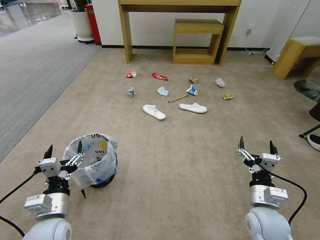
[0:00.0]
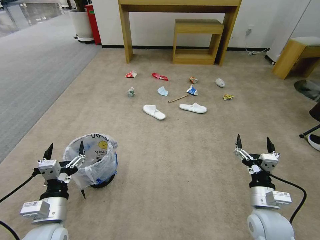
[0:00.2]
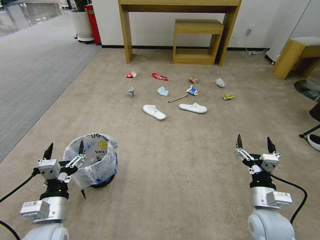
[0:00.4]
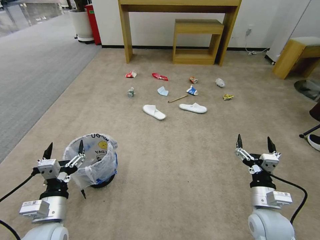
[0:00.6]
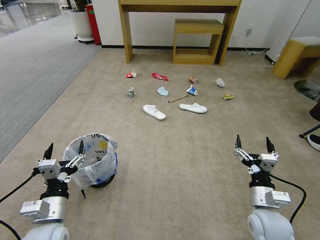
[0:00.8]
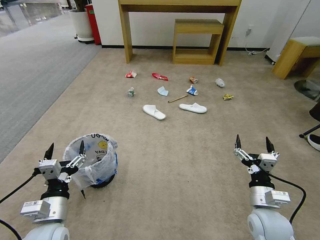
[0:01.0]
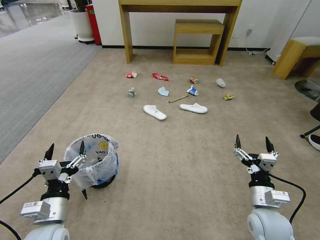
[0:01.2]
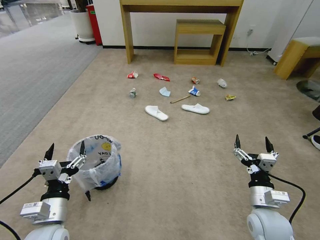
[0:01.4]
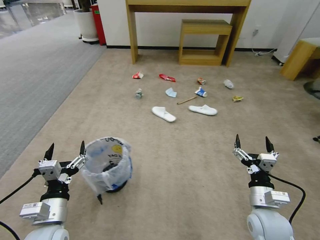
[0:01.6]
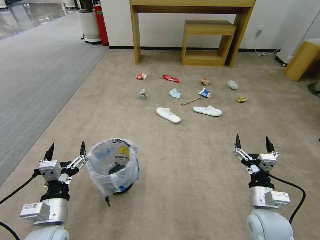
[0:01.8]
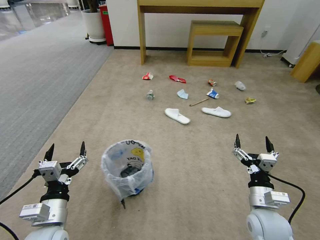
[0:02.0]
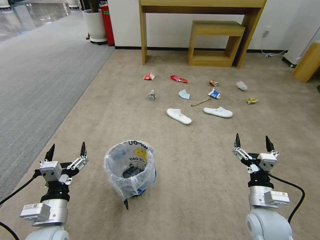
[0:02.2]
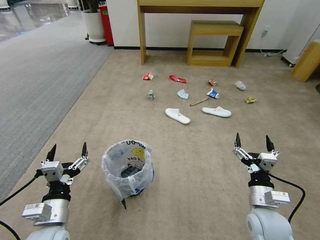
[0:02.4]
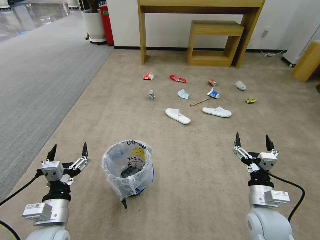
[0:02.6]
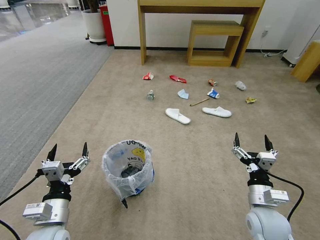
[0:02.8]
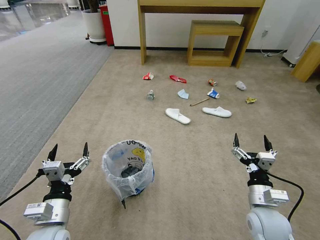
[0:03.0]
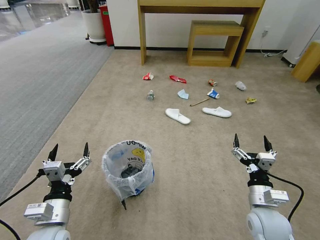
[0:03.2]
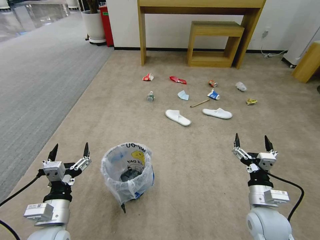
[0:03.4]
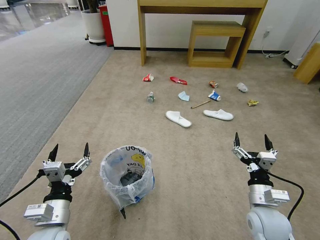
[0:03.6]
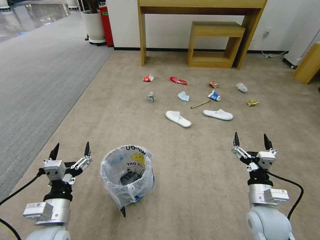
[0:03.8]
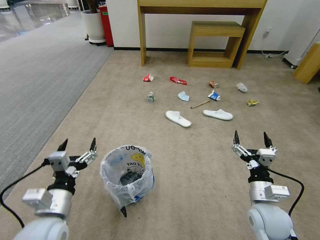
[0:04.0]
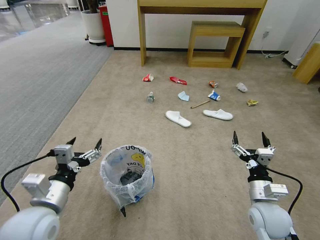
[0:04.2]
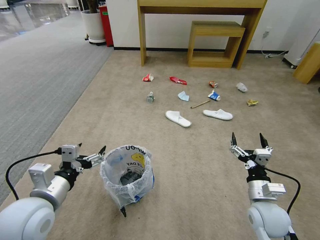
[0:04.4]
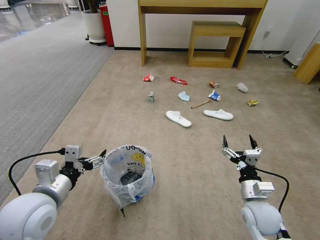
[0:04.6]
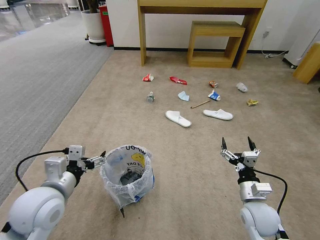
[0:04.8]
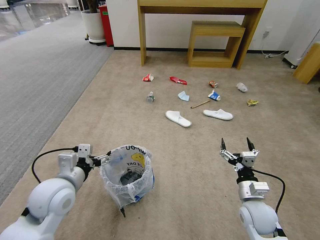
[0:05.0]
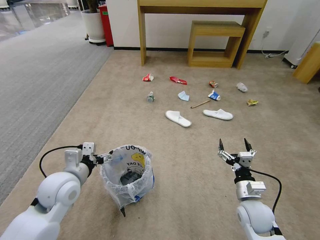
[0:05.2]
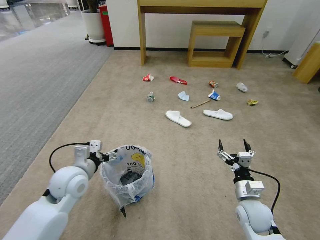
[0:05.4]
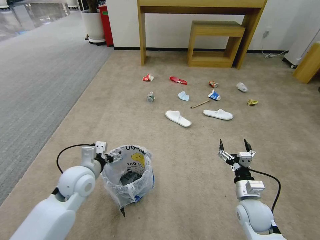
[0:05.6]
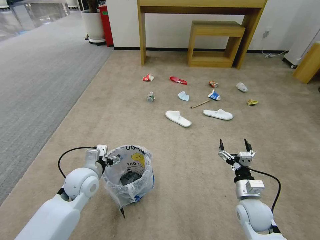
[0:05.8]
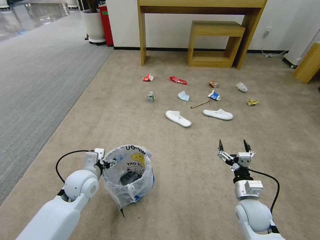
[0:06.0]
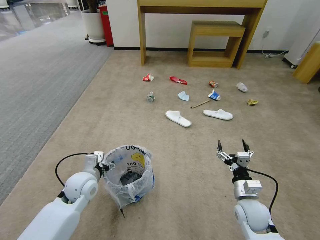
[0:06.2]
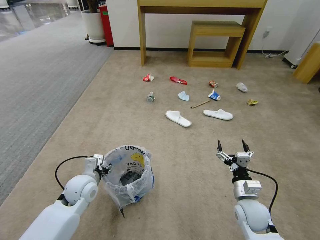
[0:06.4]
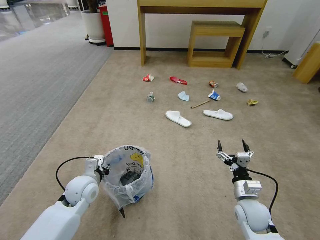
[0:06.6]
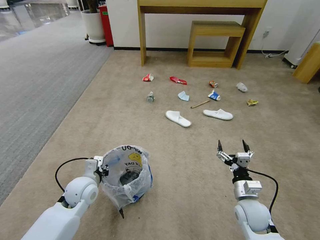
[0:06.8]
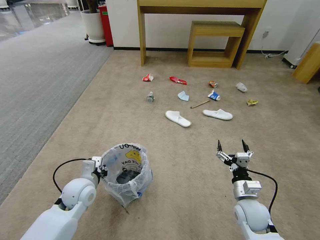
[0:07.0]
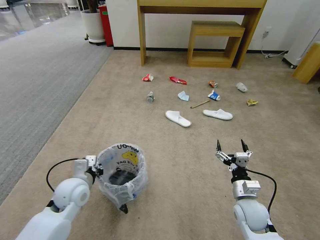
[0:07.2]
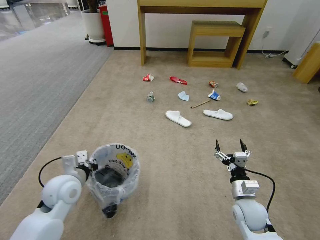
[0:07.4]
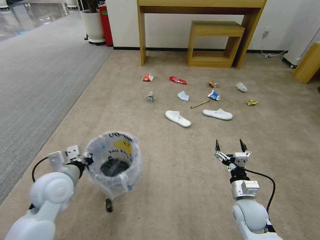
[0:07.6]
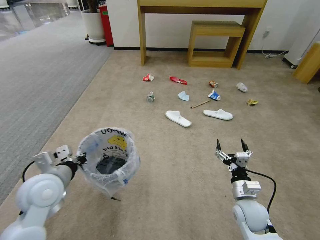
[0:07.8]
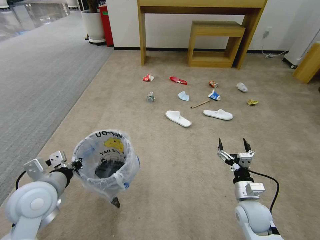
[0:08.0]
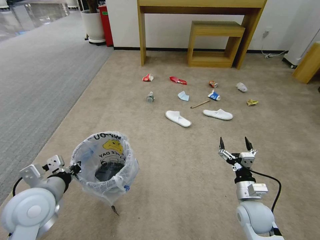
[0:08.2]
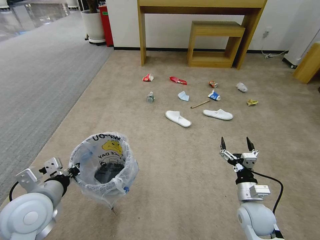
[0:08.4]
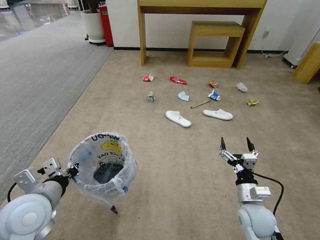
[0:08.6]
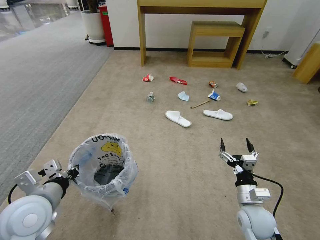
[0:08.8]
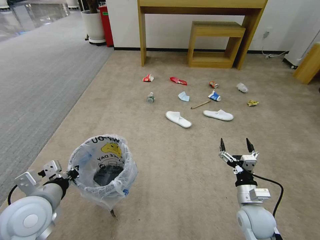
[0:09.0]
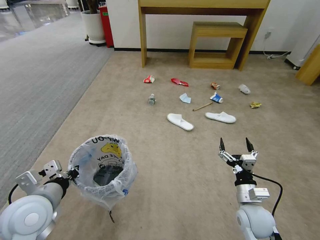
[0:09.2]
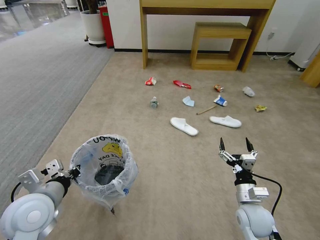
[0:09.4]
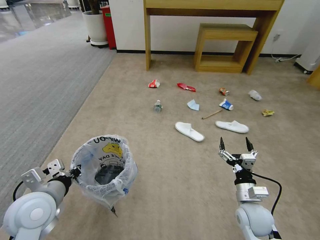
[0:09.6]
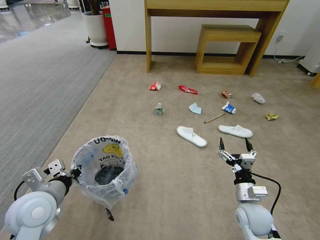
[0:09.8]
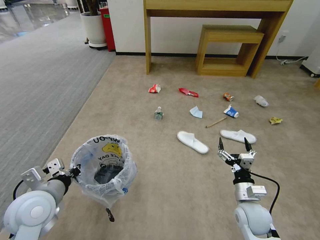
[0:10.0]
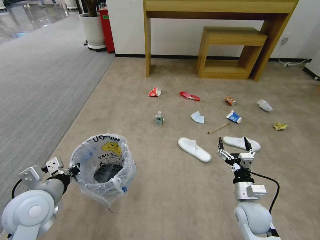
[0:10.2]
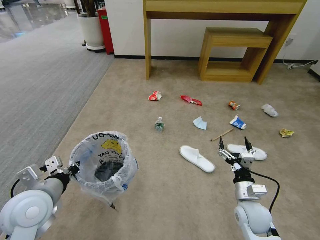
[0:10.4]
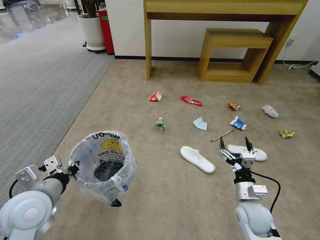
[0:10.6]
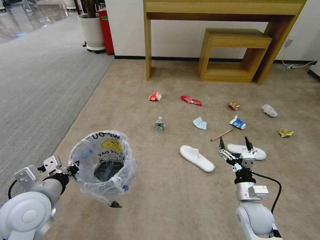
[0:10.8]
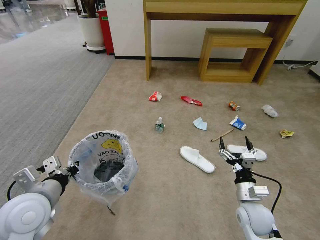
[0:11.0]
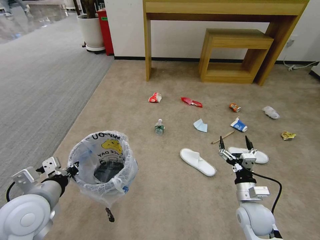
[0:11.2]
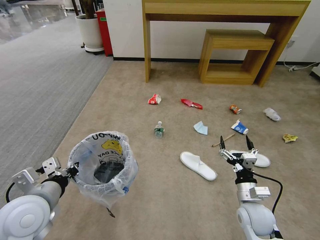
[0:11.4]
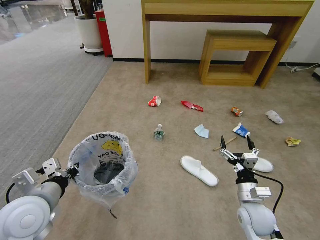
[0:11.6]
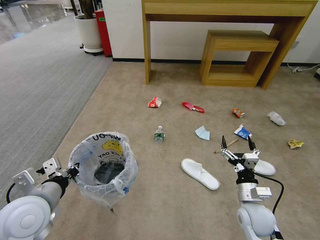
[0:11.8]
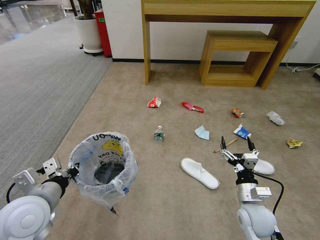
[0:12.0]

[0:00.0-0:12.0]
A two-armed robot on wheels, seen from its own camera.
Task of the whole recording: Pick up the trash bin and place the garbage on the floor into it.
0:01.6 to 0:03.0: Both grippers stay about where they are.
0:03.0 to 0:04.4: The left gripper heads upward, covering some 10 cm.
0:04.4 to 0:06.0: The right gripper shifts by approximately 5 cm. The left gripper is displaced forward and downward by approximately 15 cm.
0:06.0 to 0:07.6: The left gripper moves upward, approximately 5 cm, and closes up.
0:07.6 to 0:09.0: The left gripper shifts roughly 10 cm backward.
0:10.4 to 0:12.0: The grippers make only small movements.

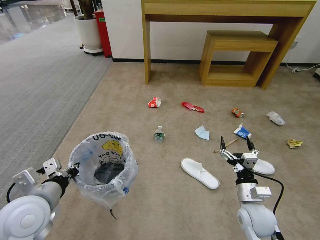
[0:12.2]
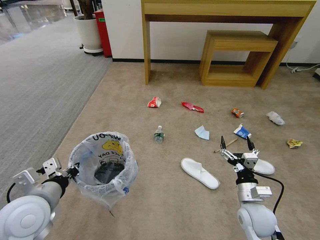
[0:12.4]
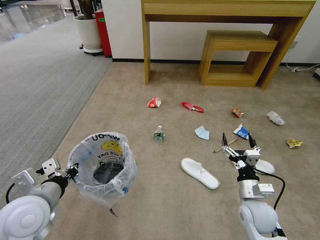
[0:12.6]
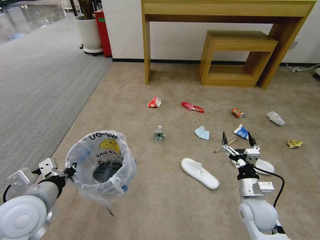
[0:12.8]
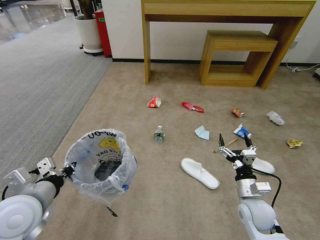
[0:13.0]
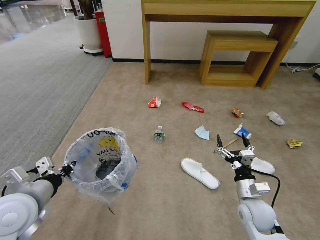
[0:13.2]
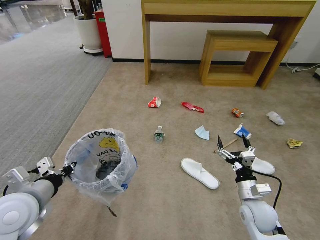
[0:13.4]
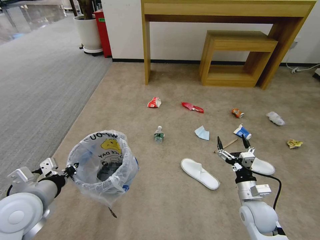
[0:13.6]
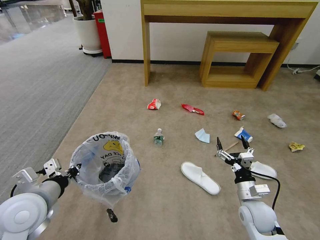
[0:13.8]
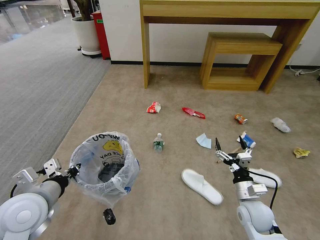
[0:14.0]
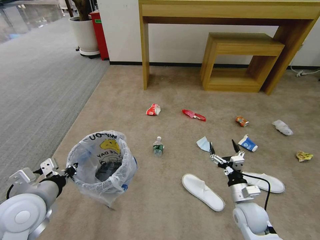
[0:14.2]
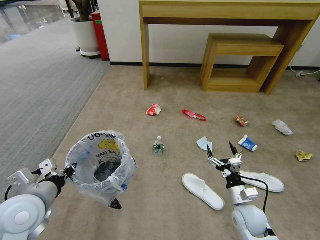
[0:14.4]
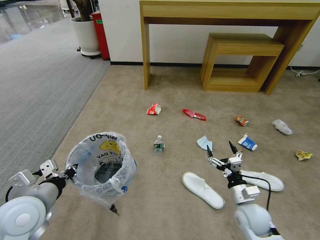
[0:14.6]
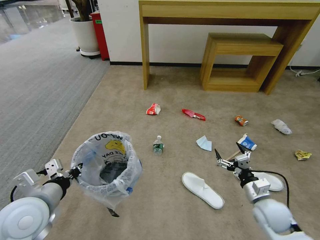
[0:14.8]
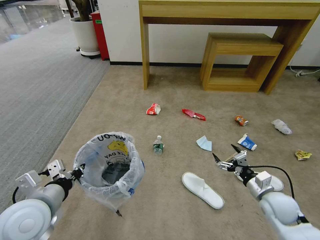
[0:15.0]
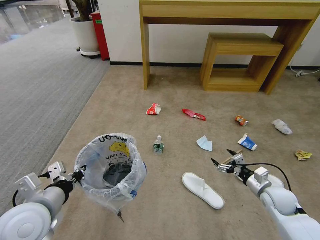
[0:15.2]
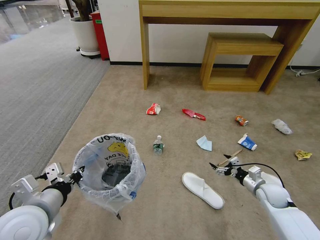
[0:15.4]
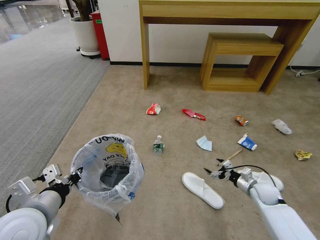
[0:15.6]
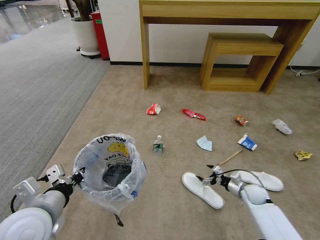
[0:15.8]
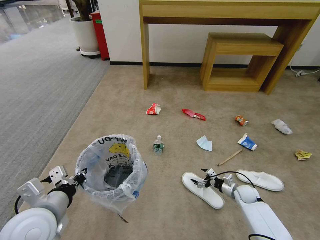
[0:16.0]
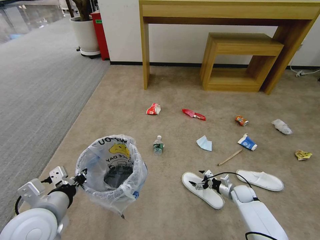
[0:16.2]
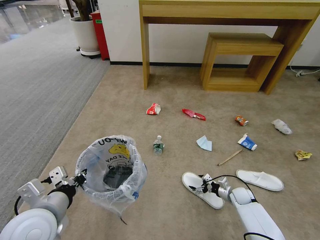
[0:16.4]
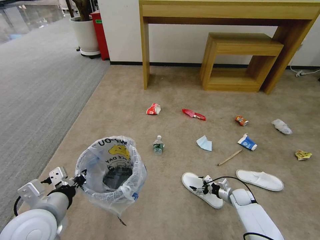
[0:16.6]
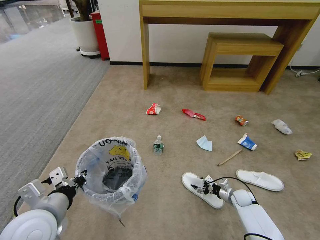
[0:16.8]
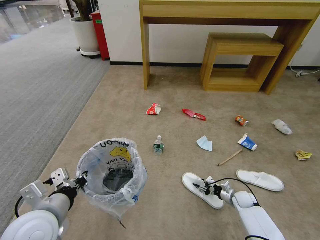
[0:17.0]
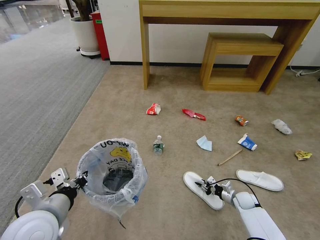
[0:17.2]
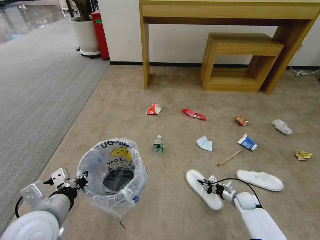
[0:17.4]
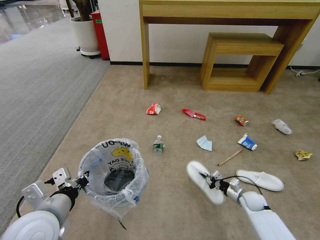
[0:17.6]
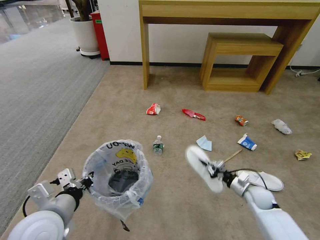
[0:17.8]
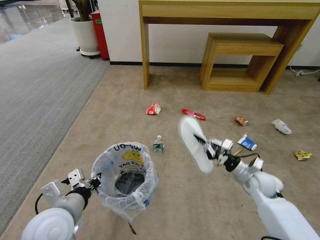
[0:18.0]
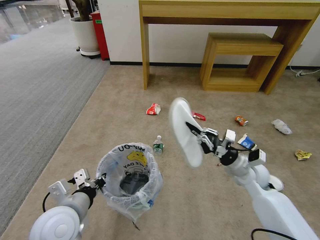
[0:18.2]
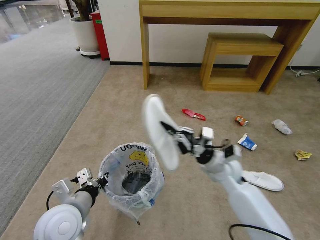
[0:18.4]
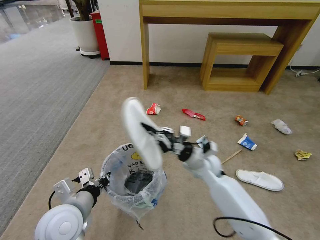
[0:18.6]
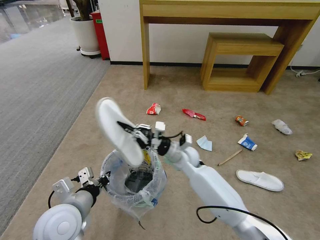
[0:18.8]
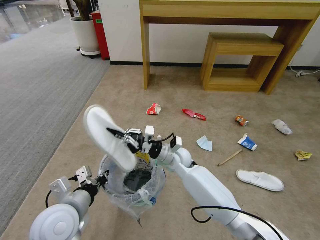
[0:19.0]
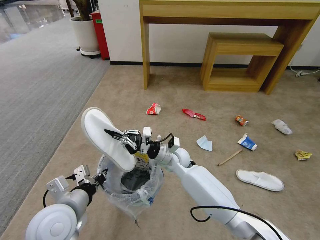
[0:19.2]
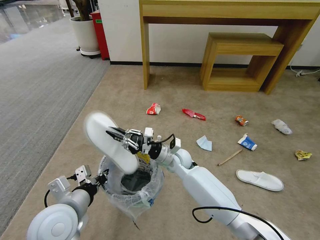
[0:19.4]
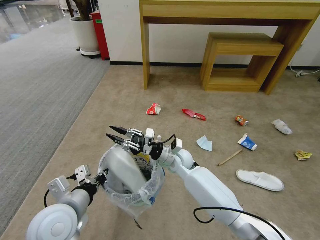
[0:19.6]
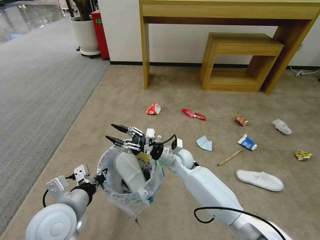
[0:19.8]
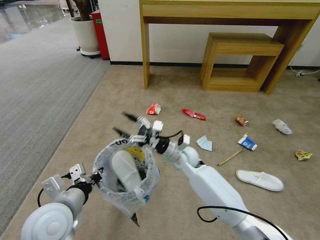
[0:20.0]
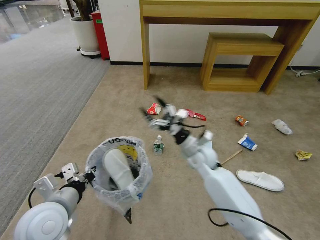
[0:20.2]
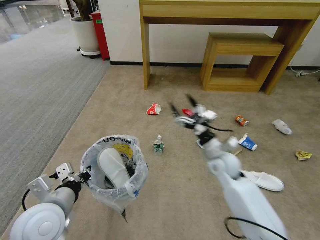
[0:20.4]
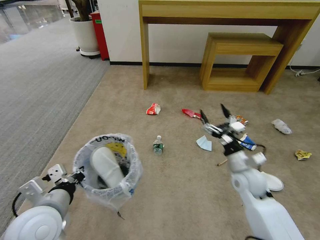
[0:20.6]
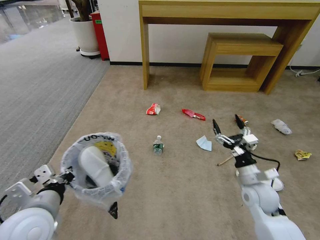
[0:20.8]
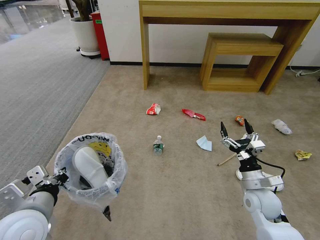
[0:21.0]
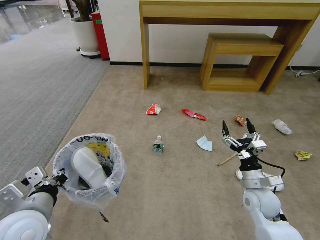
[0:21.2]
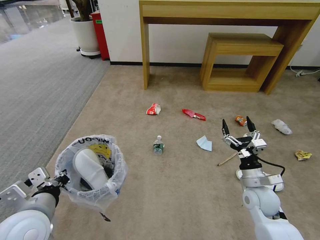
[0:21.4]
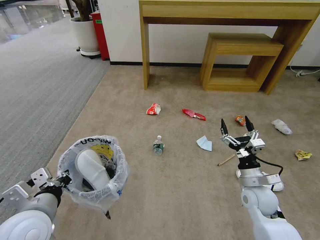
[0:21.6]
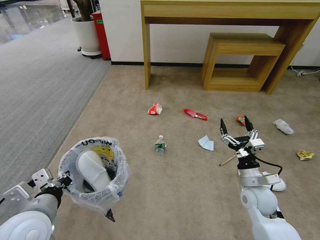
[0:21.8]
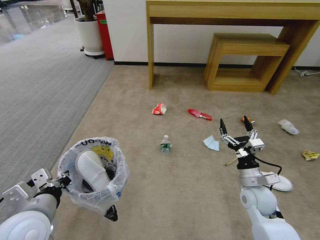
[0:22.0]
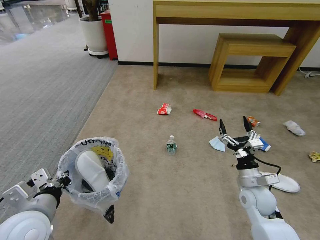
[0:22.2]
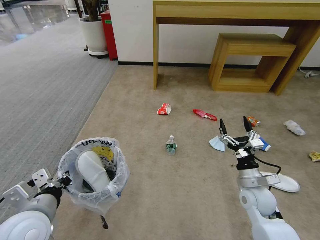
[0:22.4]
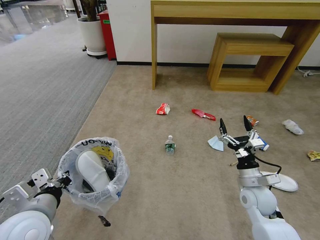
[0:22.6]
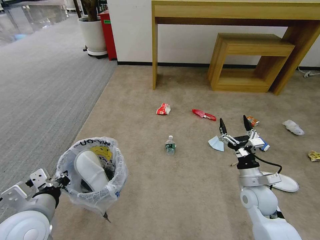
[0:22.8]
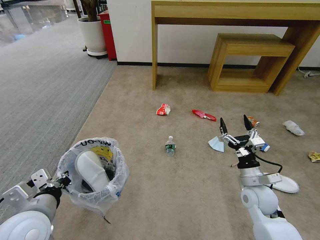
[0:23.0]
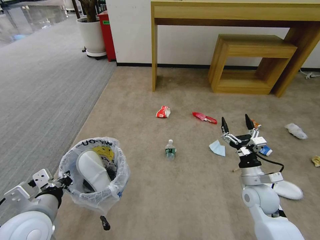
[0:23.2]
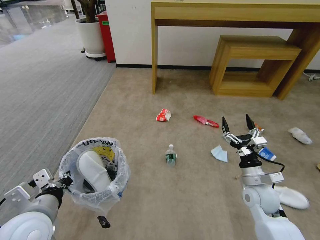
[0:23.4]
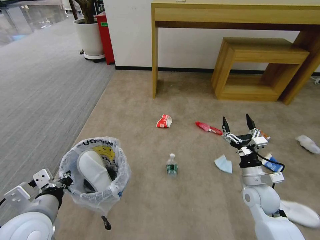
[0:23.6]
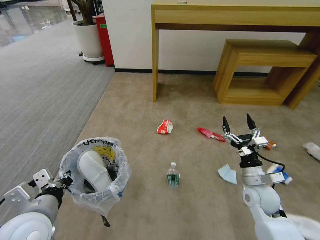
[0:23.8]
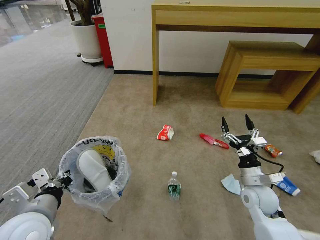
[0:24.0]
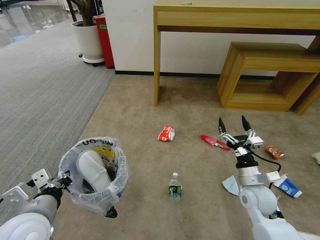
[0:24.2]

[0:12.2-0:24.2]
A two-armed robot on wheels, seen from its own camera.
Task of the whole recording: Pick up the trash bin and place the garbage on the floor into it.
0:12.2 to 0:13.8: The grippers move only a little.
0:13.8 to 0:15.2: The right gripper goes about 10 cm to the right.
0:15.2 to 0:16.6: The right gripper heads downward, covering roughly 20 cm.
0:16.6 to 0:18.2: The right gripper is displaced upward by some 25 cm, and closes. Meanwhile the left gripper changes place by roughly 5 cm.
0:18.2 to 0:19.8: The right gripper shifts approximately 20 cm to the left, and opens up.
0:19.8 to 0:21.2: The left gripper moves about 5 cm, while the right gripper goes some 30 cm to the right and backward, and opens up.
0:21.2 to 0:22.6: Neither gripper changes place.
